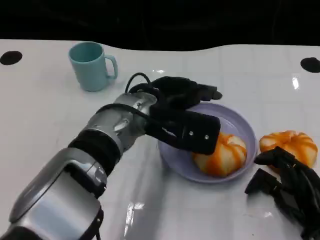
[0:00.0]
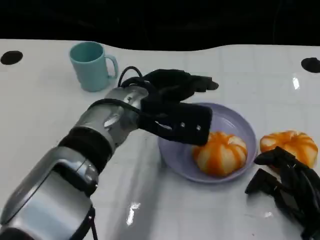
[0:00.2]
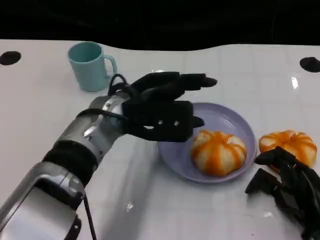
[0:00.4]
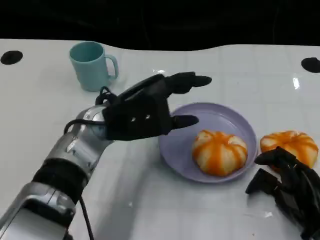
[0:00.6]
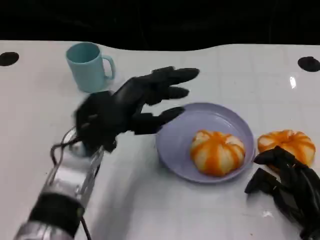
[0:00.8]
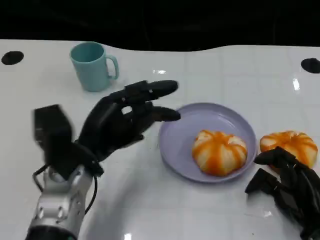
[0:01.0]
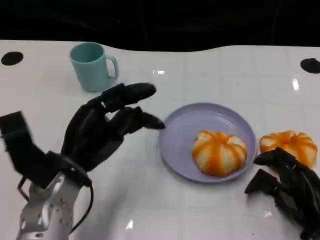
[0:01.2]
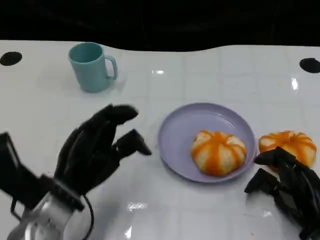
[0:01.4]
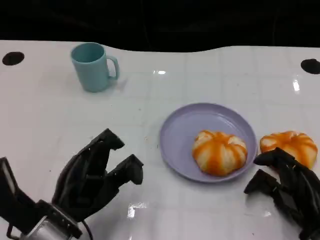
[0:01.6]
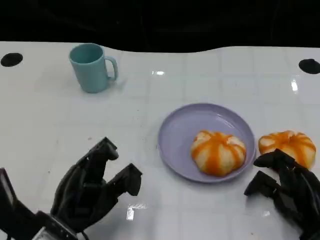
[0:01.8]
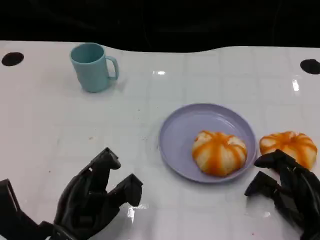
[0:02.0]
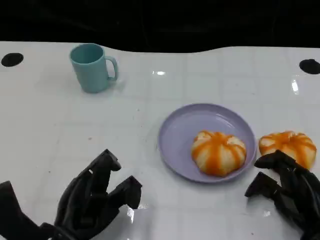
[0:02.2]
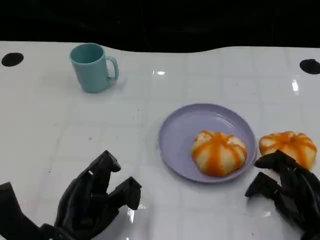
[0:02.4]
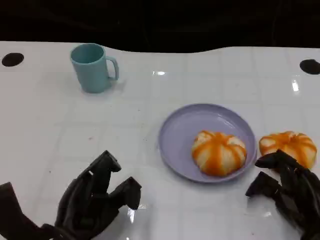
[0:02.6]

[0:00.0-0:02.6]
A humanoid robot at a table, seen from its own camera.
Task of the whole recording: Grasp the bread from the table and place it into the plate.
0:00.0 to 0:01.2: The left hand moves to the left, backward and downward, roughly 15 cm.
0:01.2 to 0:02.6: The left hand moves backward and downward, approximately 10 cm.

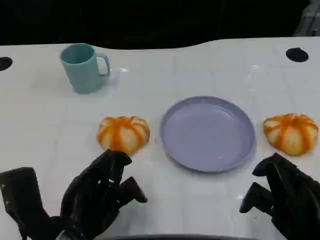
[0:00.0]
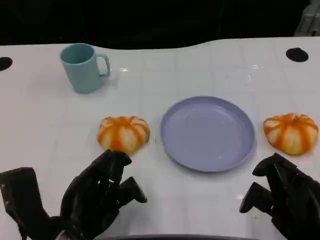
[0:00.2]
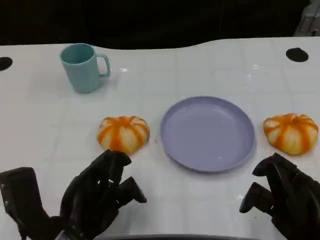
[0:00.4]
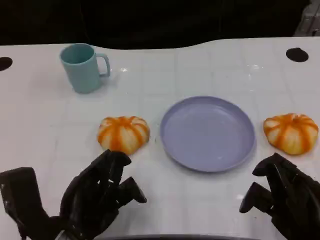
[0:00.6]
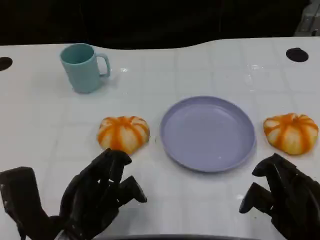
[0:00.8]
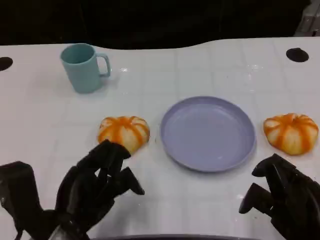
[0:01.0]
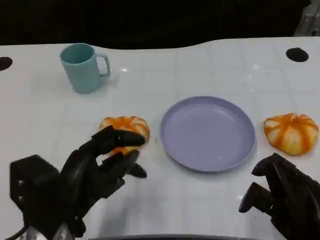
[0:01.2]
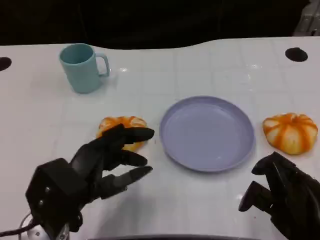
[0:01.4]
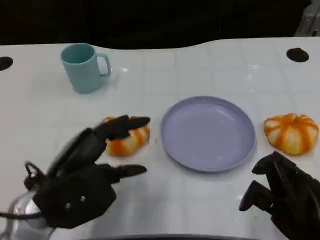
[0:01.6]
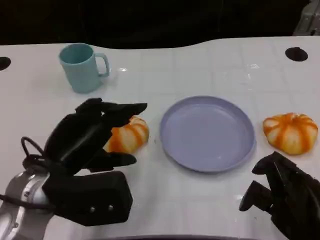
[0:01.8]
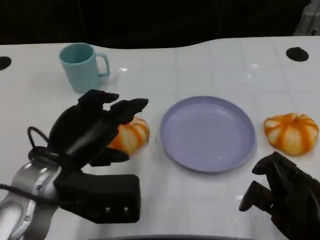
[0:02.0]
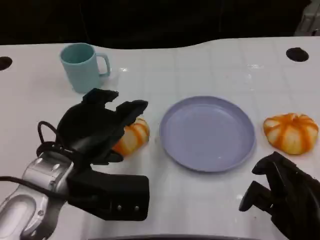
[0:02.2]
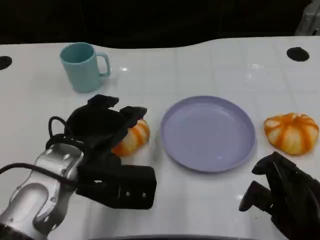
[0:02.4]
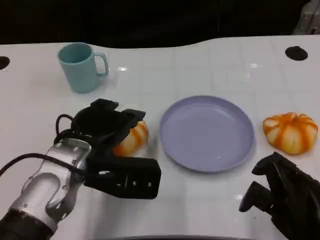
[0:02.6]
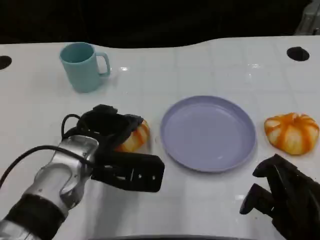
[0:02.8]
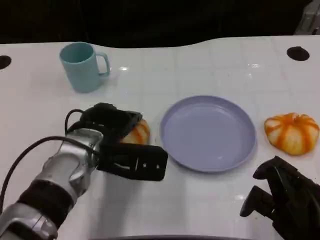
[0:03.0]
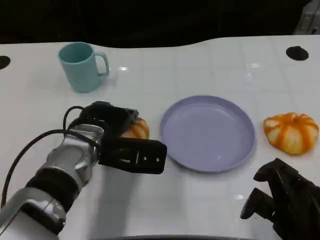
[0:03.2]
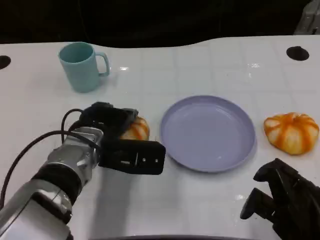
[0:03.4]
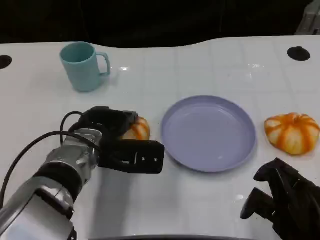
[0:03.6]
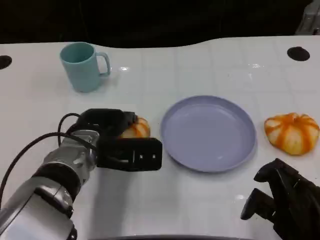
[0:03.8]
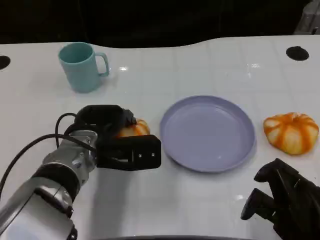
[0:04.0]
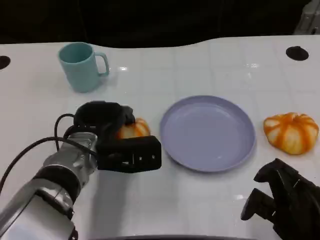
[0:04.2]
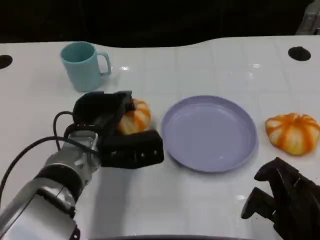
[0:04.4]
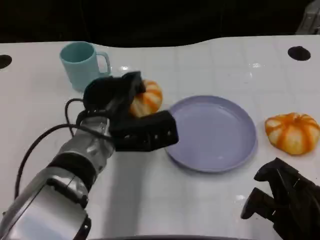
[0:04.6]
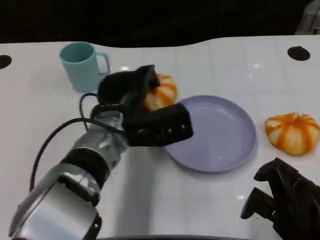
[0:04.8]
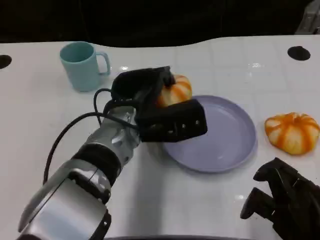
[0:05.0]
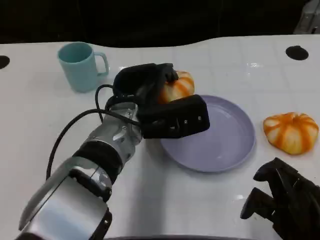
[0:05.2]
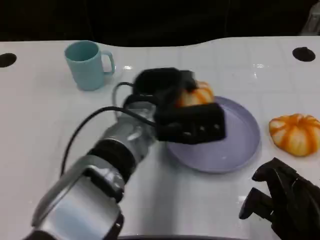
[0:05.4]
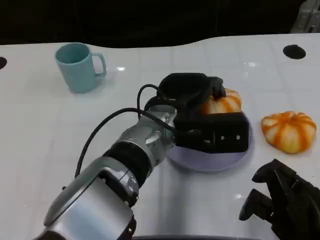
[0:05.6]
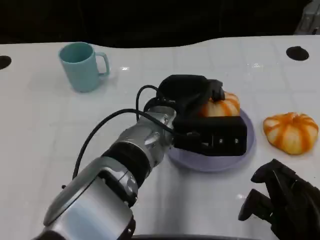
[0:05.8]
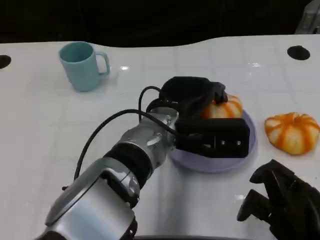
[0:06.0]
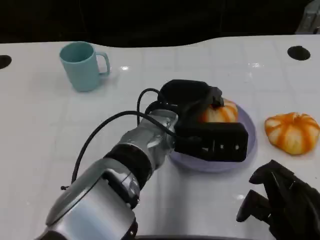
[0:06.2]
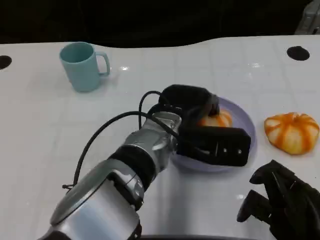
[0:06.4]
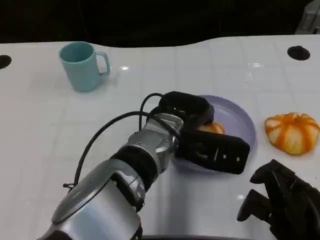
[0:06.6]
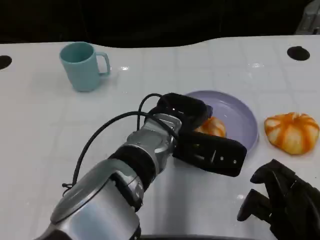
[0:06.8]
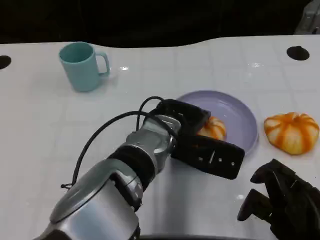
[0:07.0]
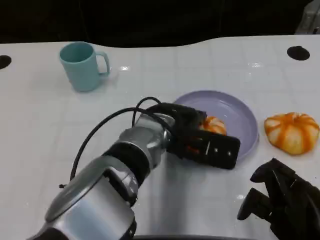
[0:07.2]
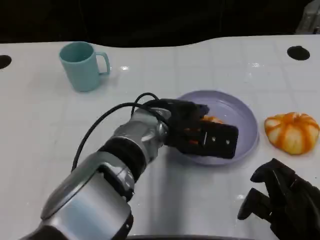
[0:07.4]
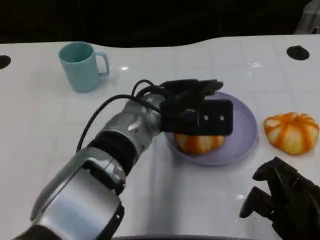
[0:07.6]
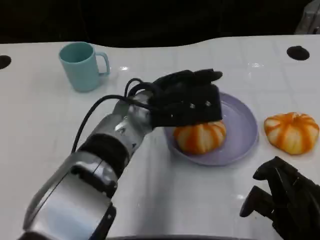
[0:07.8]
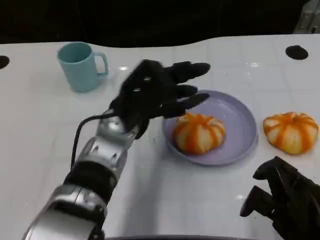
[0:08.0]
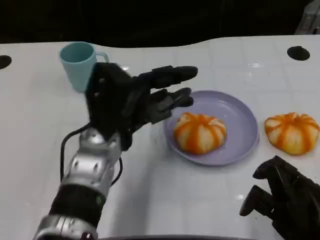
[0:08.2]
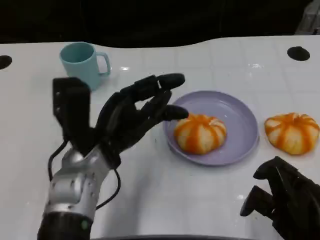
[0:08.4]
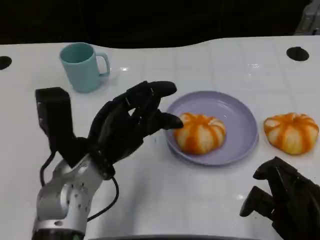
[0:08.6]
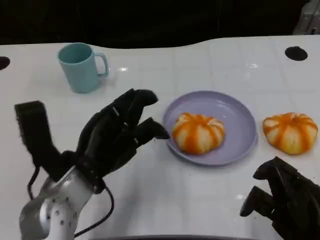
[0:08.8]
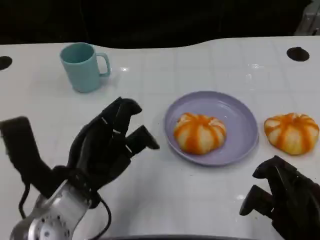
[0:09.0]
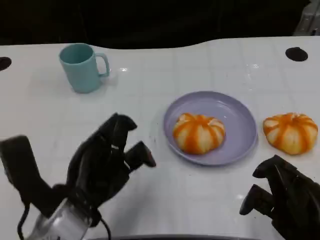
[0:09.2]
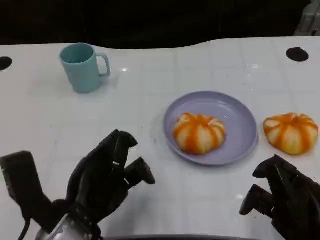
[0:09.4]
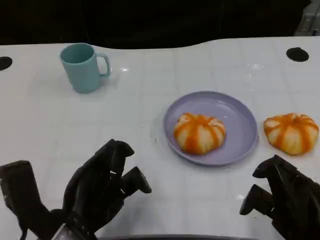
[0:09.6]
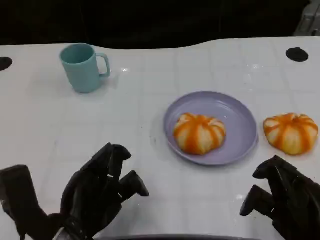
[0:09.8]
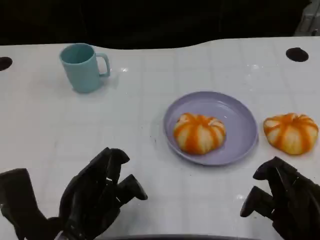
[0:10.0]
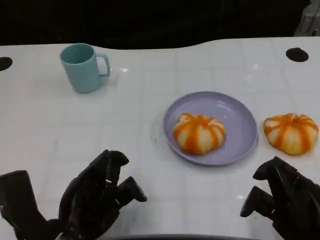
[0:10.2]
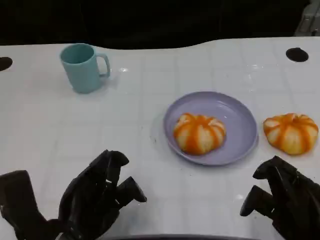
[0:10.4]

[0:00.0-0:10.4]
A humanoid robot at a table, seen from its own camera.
Task of the whole recording: Grasp the bread from the table and place it into the plate.
0:01.4 to 0:03.0: The left hand is displaced forward and to the right by some 10 cm.
0:04.4 to 0:06.0: The left hand shifts about 10 cm to the right.
0:07.4 to 0:09.0: The left hand is displaced to the left and backward by approximately 15 cm.
0:09.0 to 0:10.4: The left hand shifts roughly 5 cm backward.

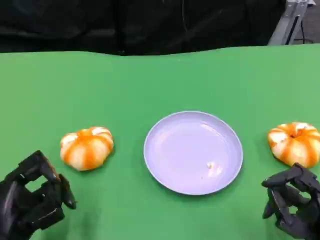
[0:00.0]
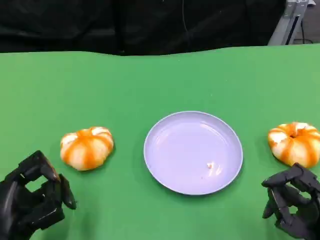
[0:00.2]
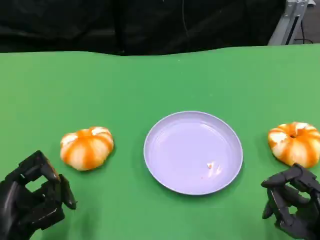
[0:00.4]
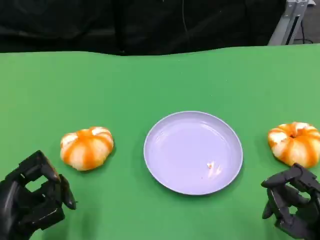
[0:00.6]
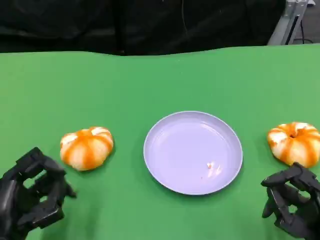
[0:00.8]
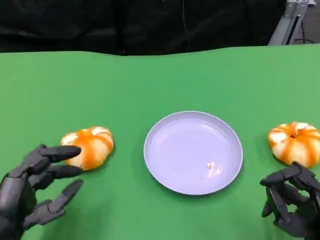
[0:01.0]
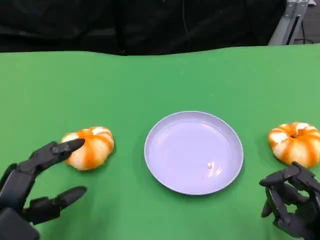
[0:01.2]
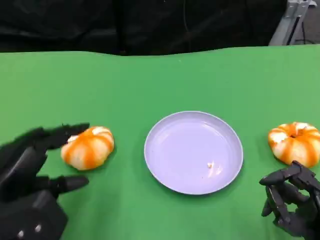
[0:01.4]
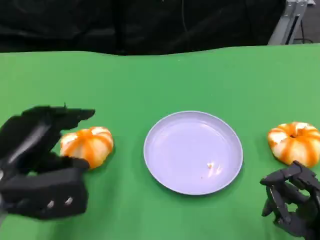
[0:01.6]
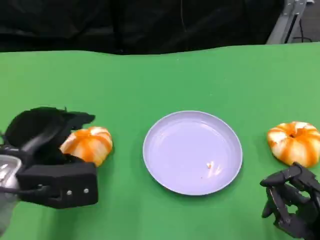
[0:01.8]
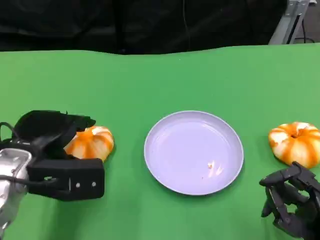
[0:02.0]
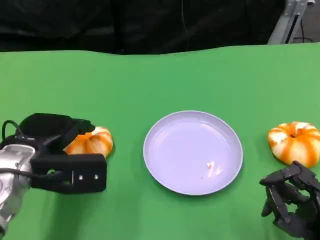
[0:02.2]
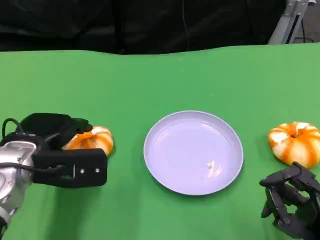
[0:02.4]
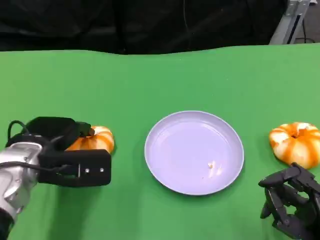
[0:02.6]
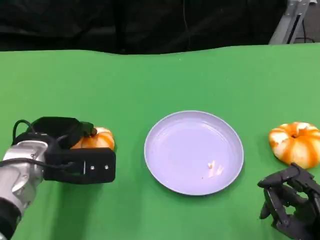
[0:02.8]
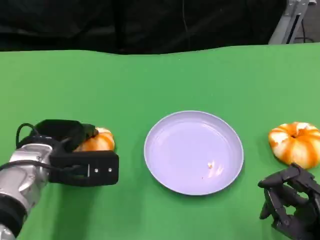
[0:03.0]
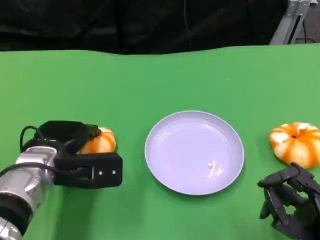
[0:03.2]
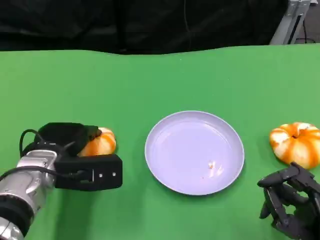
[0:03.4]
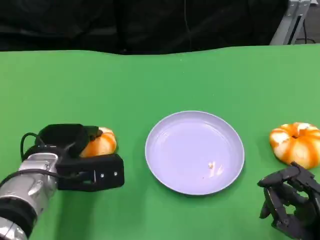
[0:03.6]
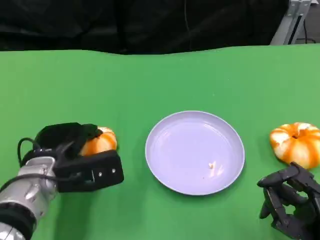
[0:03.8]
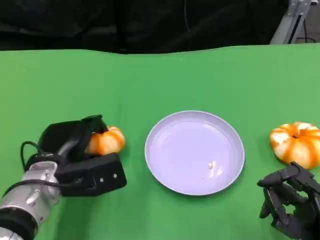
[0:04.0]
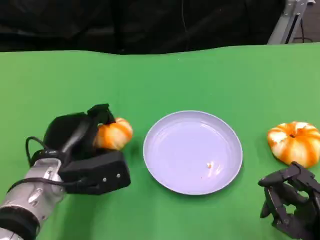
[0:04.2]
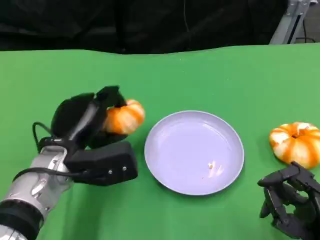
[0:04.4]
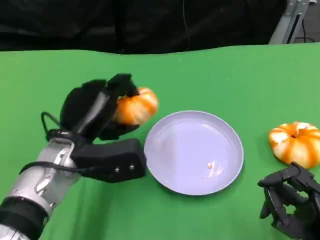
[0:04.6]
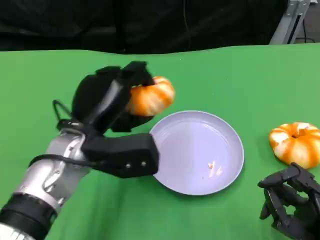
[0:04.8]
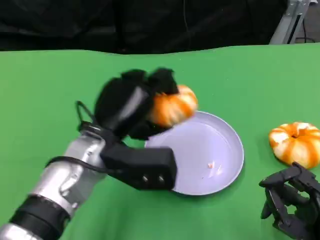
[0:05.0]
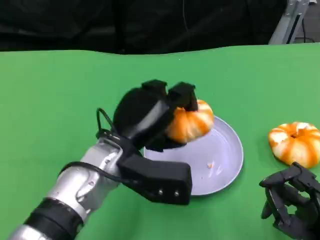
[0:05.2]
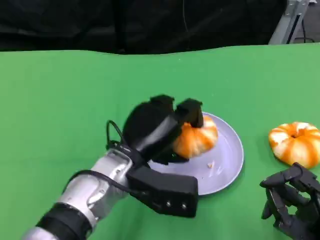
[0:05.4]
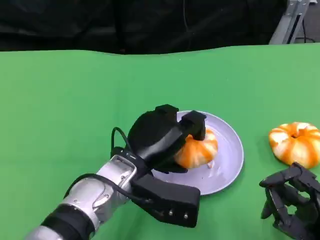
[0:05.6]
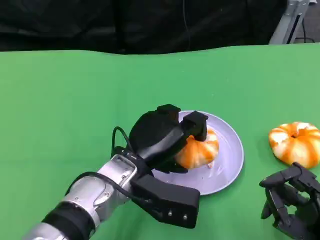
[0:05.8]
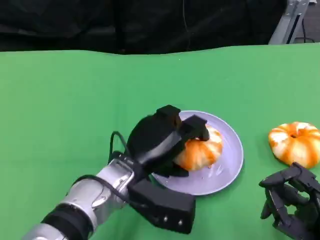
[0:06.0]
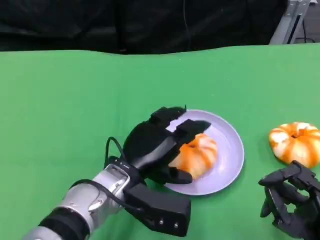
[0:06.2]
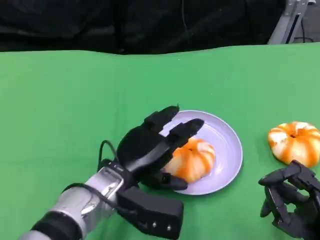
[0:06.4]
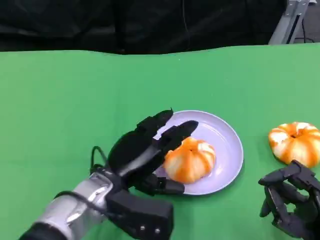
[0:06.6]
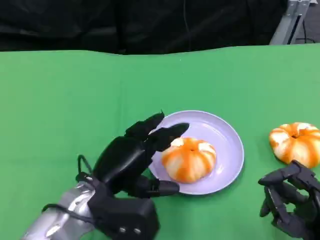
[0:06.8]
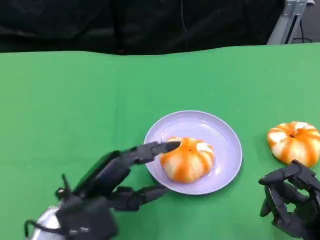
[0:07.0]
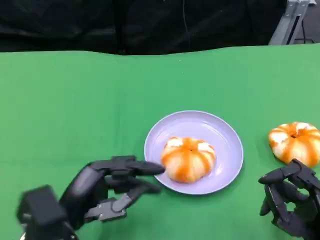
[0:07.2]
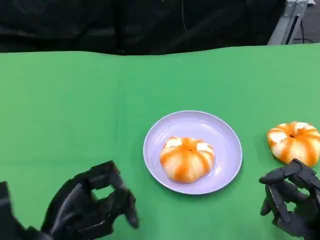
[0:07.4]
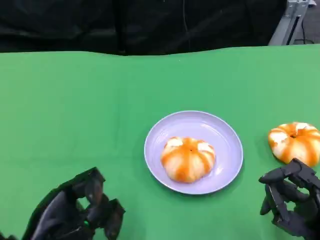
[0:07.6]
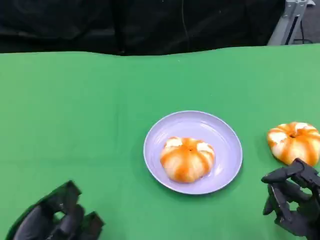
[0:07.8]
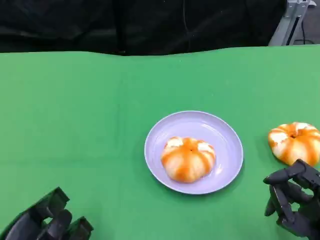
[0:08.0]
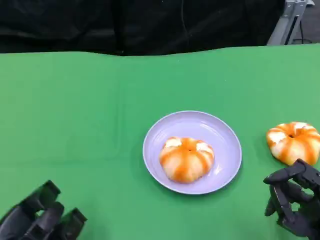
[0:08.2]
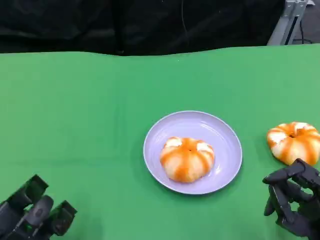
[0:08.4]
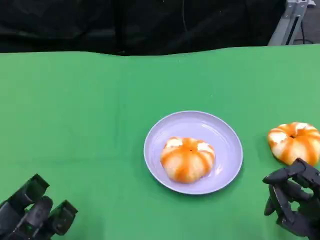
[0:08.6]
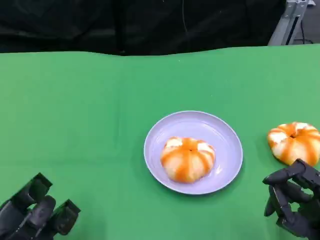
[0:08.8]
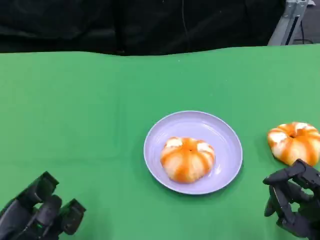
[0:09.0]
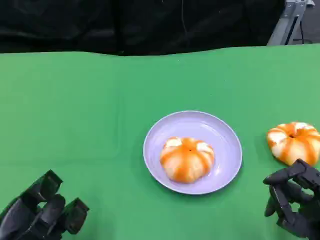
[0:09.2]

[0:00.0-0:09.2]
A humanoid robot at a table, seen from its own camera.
Task of the whole recording: Grasp the bread from the table and place it into the plate.
0:00.0 to 0:01.6: The left hand is displaced upward and forward by roughly 10 cm.
0:01.6 to 0:03.0: The left hand is displaced forward by roughly 5 cm.
0:03.0 to 0:04.6: The left hand moves about 5 cm.
0:04.6 to 0:06.2: The left hand travels to the right by approximately 5 cm.
0:06.2 to 0:07.6: The left hand is displaced to the left and backward by roughly 20 cm.
0:07.6 to 0:09.2: The hands move only a little.
